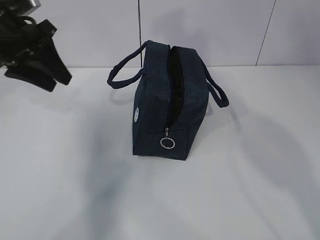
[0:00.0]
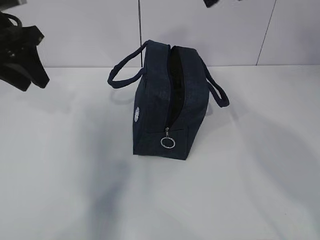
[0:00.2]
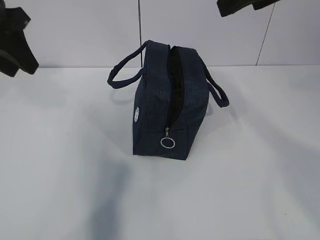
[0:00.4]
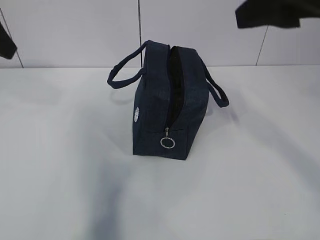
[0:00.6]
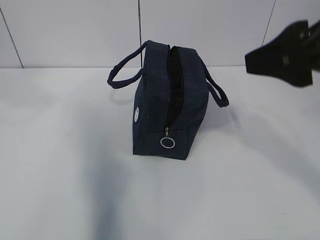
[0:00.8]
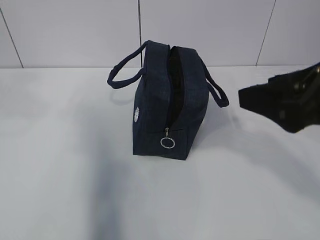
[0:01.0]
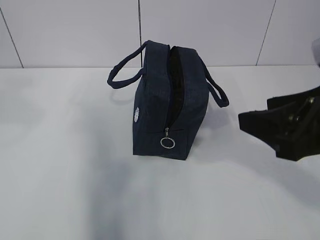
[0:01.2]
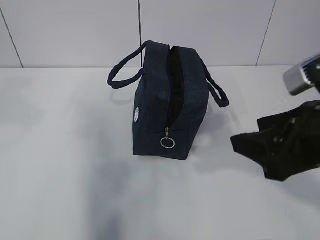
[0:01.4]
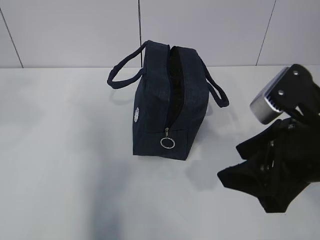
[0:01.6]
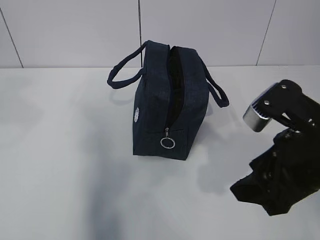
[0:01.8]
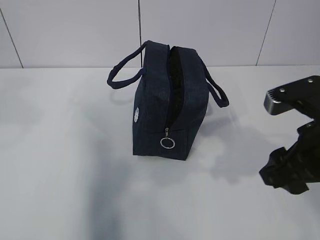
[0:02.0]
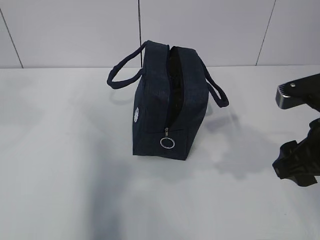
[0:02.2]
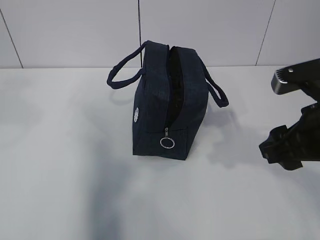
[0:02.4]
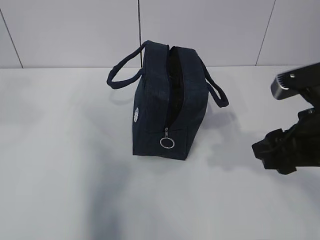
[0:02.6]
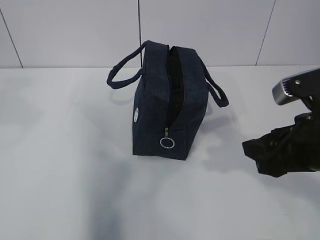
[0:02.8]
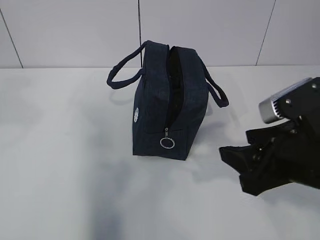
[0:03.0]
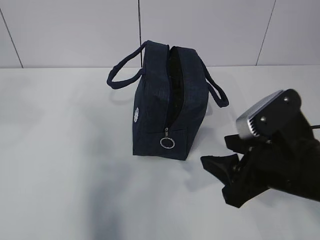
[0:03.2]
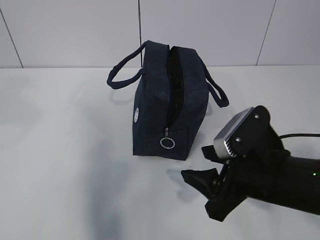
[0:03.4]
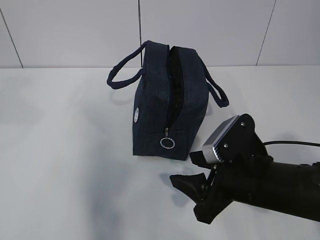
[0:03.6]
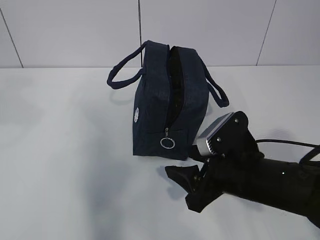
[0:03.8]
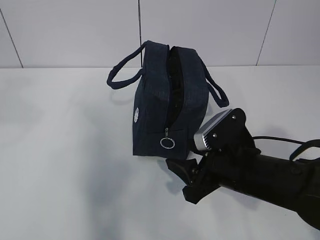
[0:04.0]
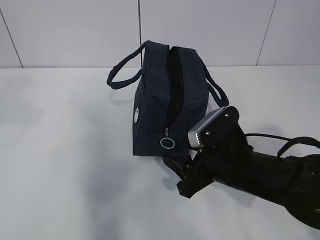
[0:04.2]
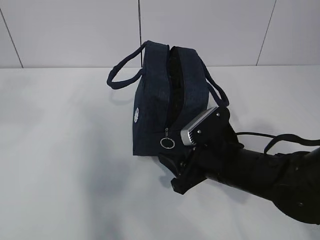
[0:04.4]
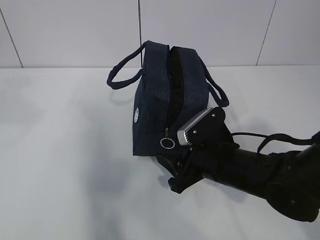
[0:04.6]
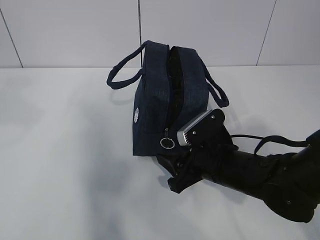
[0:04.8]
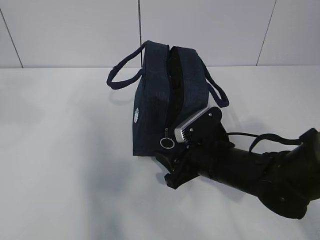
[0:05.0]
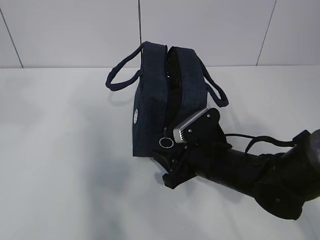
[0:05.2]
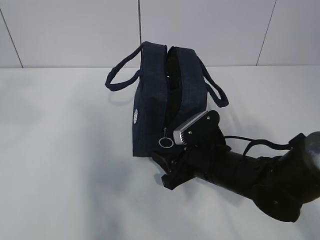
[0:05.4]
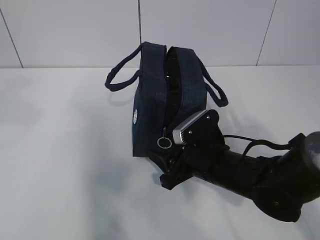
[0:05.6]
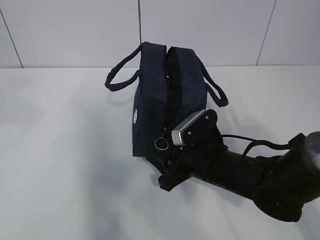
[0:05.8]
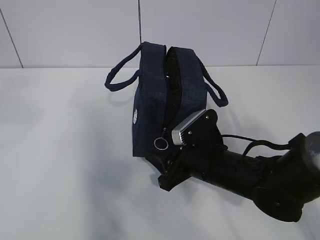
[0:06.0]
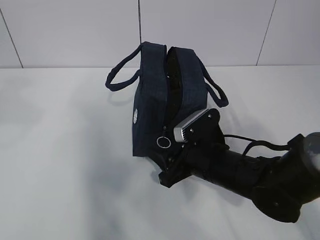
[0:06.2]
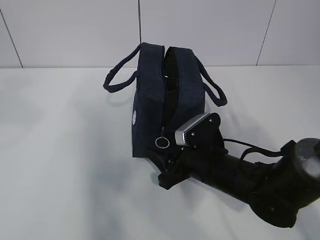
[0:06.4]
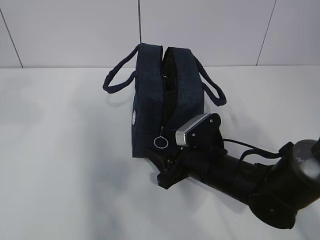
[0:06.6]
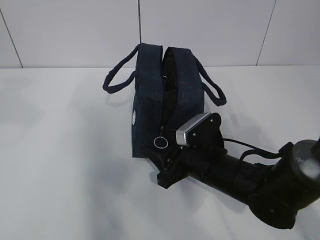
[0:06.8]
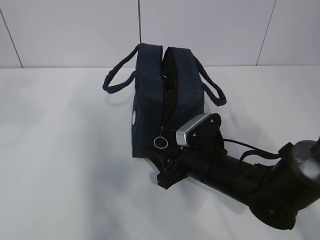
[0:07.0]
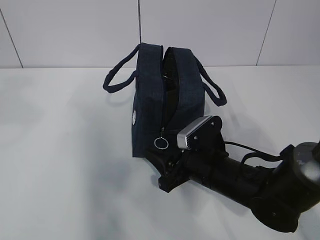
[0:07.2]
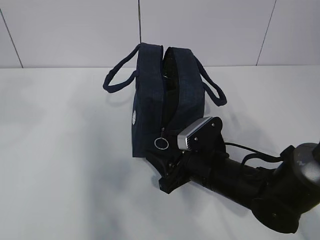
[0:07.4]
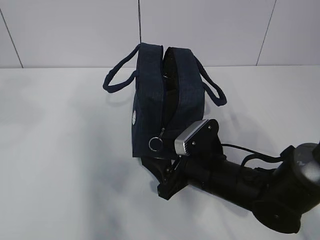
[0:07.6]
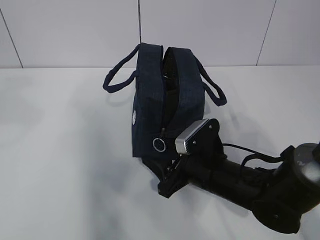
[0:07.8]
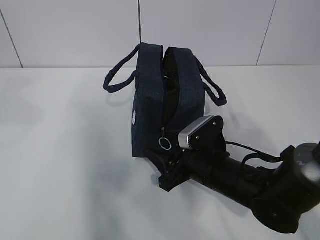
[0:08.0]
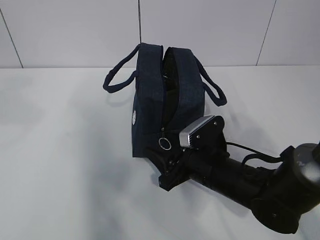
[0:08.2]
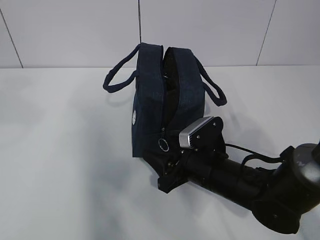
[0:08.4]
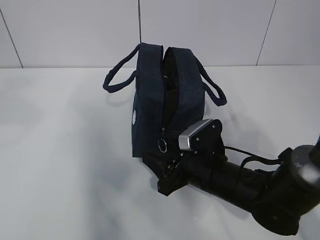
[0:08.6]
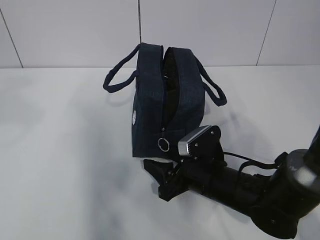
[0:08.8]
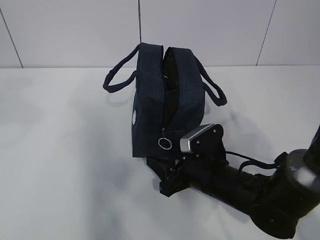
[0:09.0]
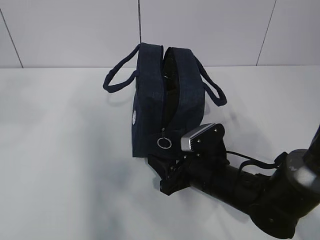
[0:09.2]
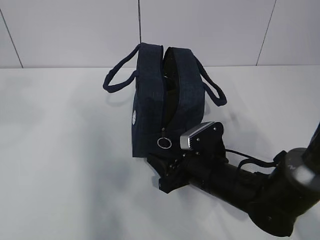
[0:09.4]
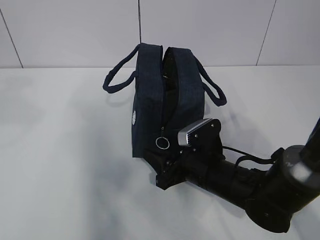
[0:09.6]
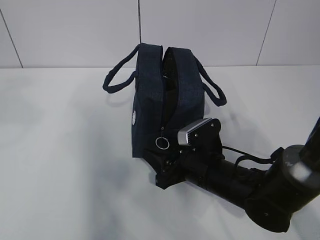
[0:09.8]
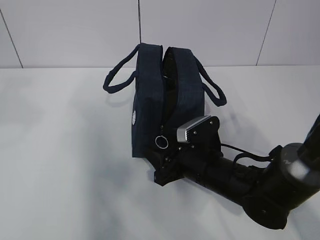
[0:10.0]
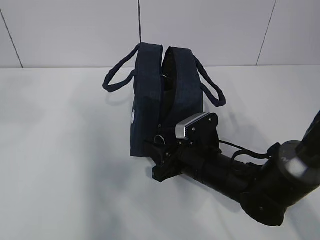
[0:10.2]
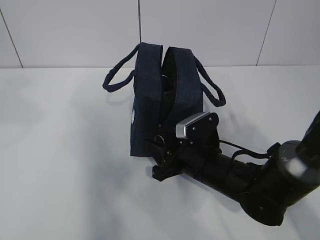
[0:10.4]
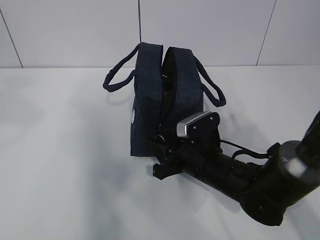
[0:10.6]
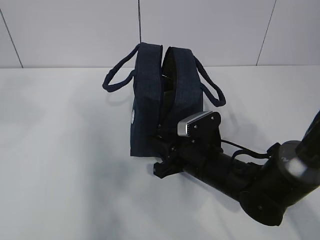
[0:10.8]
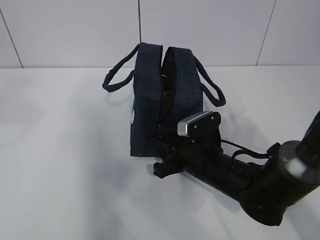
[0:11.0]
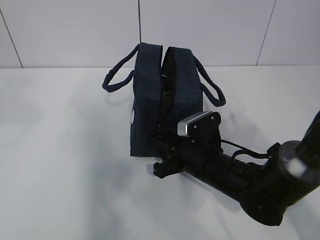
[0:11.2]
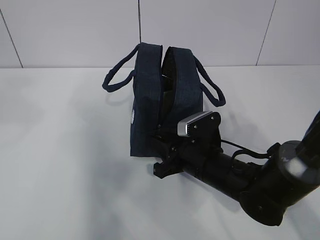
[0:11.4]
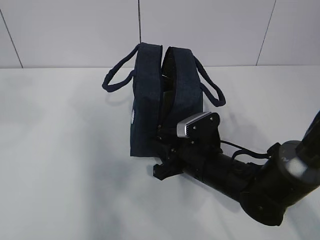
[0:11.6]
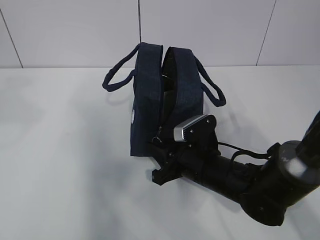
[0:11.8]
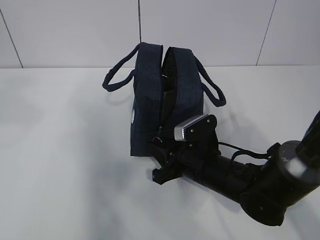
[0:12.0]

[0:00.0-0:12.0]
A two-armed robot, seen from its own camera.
Step, 0:00.0 to 0:09.4: Grab the lunch bag with your left hand.
0:00.0 to 0:01.6: The right gripper moves downward and backward, some 25 cm. Meanwhile the left gripper goes approximately 20 cm backward and upward.
0:03.0 to 0:04.4: The right gripper is displaced downward, forward and to the left by some 15 cm.
0:04.4 to 0:10.4: The grippers stay close to where they were, moving slightly.
0:10.4 to 0:12.0: Both grippers stay about where they are.

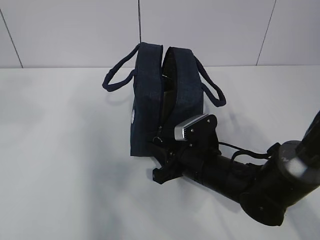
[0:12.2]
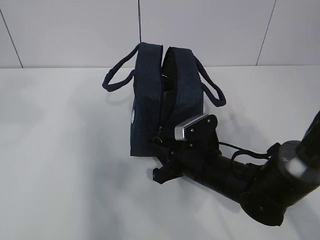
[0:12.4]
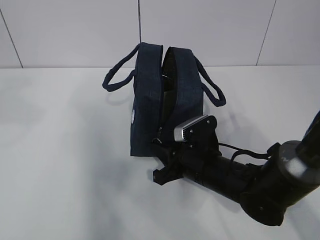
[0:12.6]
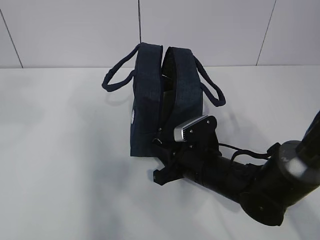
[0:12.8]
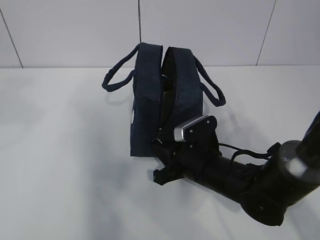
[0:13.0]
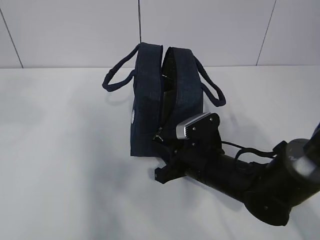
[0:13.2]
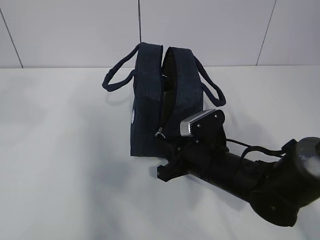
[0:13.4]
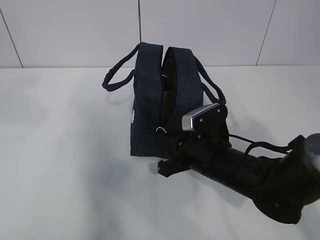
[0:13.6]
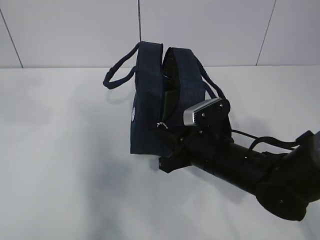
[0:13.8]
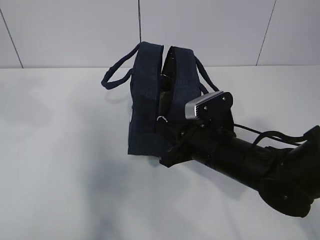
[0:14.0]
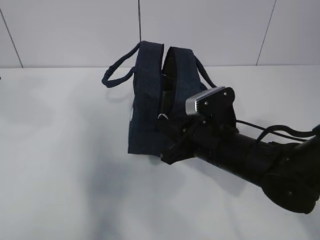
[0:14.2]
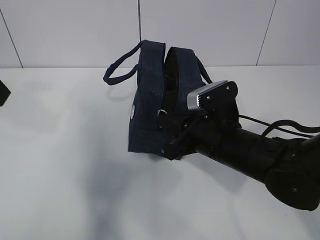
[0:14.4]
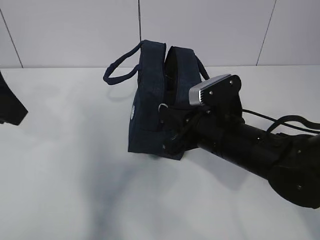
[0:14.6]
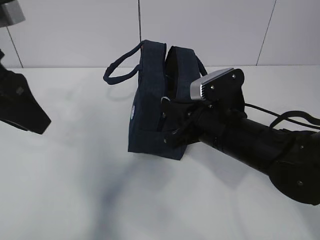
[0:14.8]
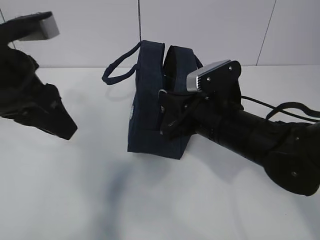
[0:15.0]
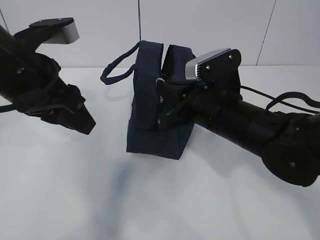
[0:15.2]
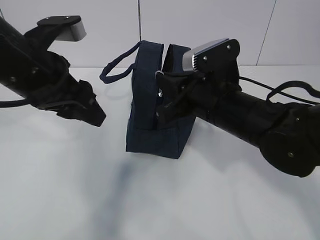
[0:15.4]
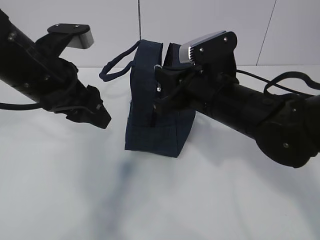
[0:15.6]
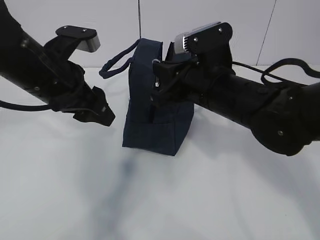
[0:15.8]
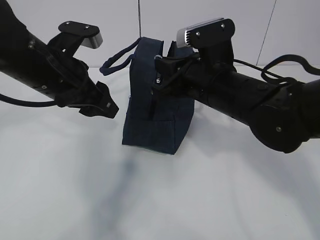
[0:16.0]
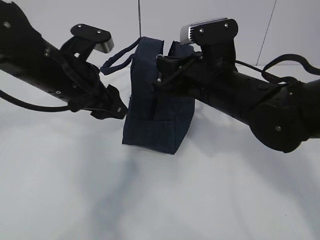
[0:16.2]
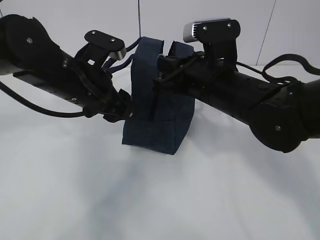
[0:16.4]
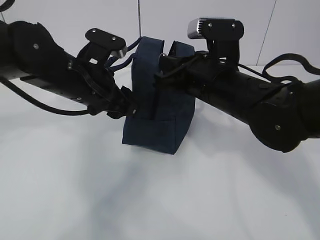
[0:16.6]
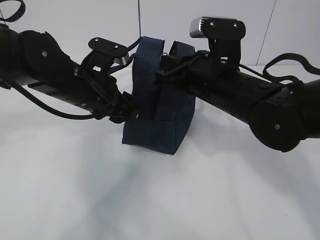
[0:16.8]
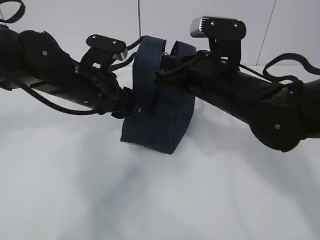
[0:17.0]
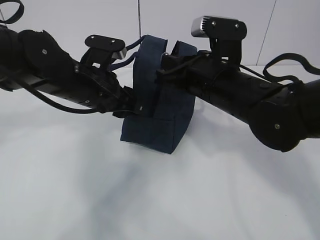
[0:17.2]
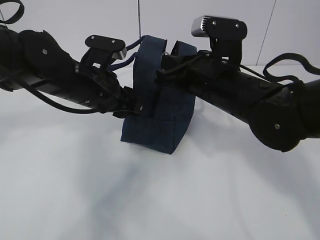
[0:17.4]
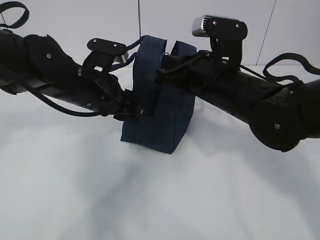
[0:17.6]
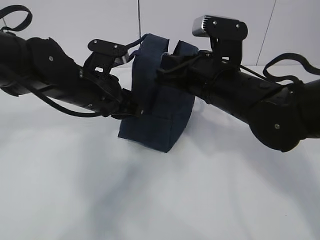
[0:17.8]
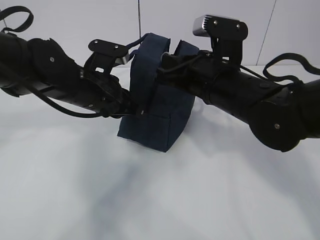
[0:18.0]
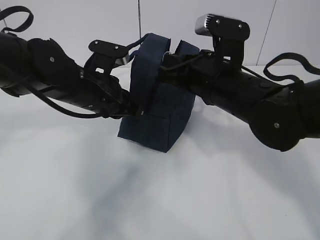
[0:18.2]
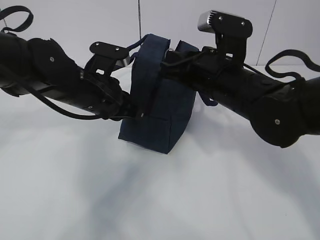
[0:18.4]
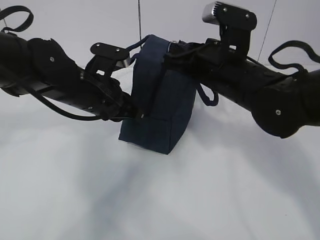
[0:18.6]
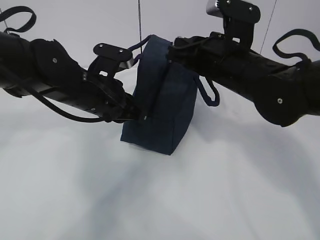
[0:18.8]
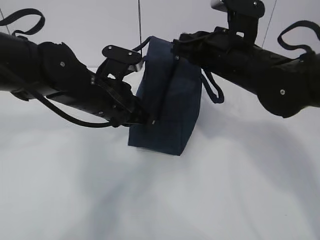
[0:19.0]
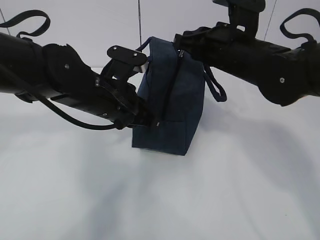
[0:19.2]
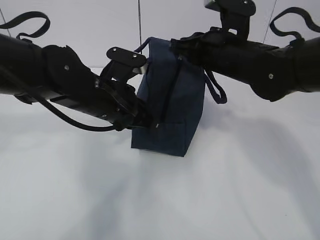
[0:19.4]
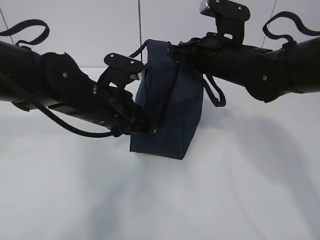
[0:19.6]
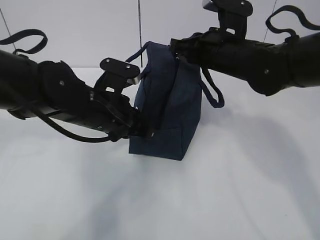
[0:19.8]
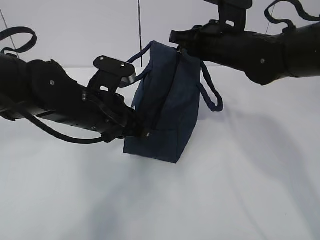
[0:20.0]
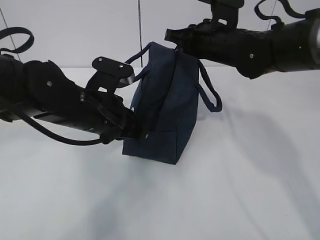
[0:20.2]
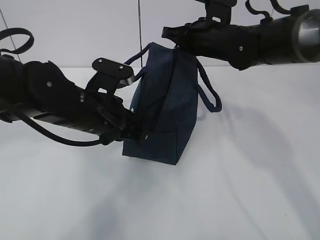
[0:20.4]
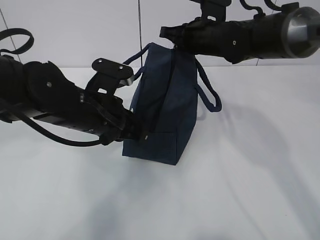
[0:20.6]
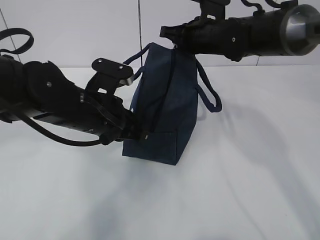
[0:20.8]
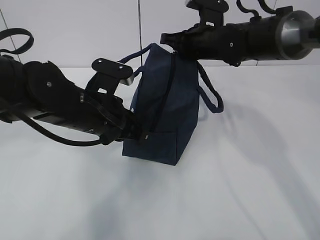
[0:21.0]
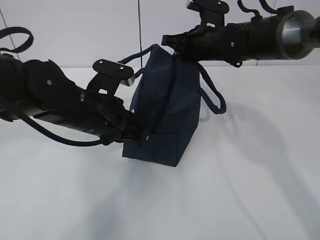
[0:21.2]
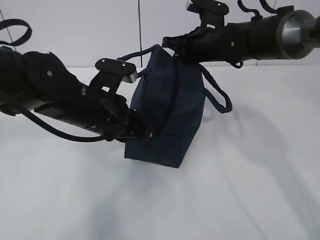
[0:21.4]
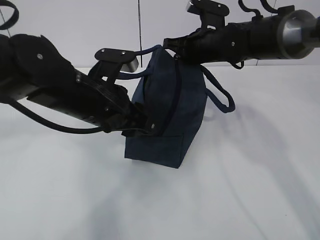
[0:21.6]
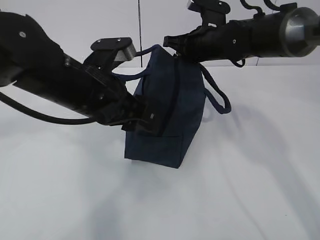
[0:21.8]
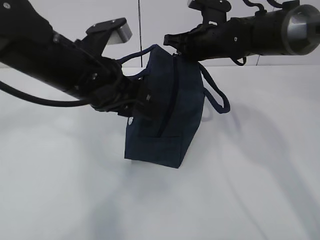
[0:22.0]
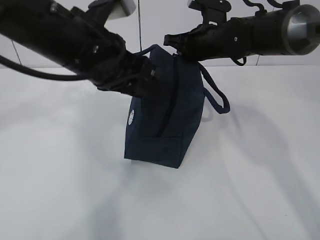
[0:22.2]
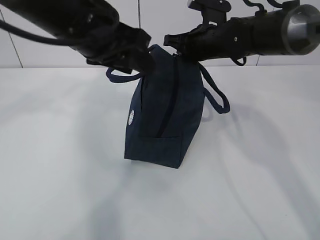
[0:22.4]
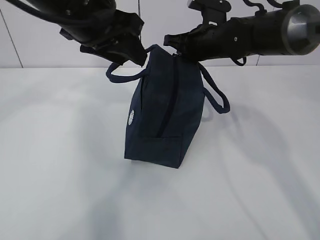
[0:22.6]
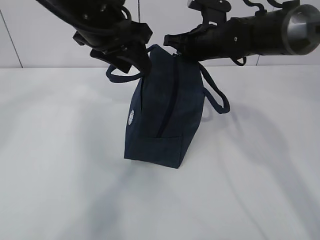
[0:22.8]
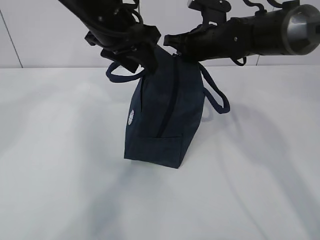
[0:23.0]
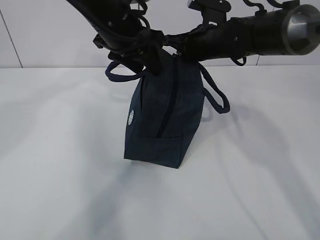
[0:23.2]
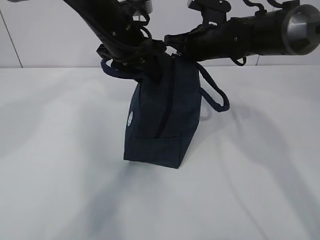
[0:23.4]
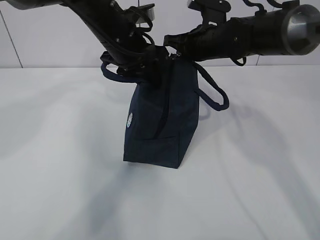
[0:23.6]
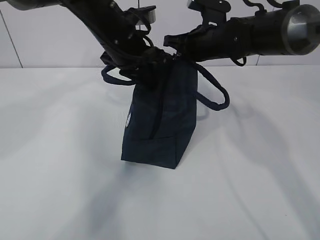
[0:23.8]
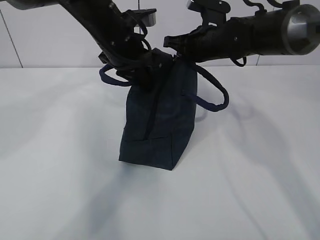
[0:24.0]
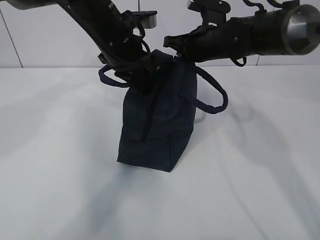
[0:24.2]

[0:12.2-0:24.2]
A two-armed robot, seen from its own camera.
Step, 0:12.2 to 0:17.0: Pull the zipper with your right hand.
Step, 0:17.2 to 0:17.6: Grab the lunch bag with your left hand.
0:12.2 to 0:13.8: The grippers make only small movements.
0:13.8 to 0:15.2: The left gripper moves downward and to the right, approximately 15 cm, while the right gripper shifts some 10 cm upward.
0:15.2 to 0:16.6: The left gripper shifts roughly 10 cm downward and forward.
0:16.6 to 0:18.2: The left gripper closes its fingers.
0:18.2 to 0:19.8: The right gripper is displaced forward by approximately 5 cm.
0:19.8 to 0:21.2: The right gripper is displaced forward by approximately 10 cm.
0:21.2 to 0:22.6: The left gripper goes some 15 cm upward, and opens up.
0:22.6 to 0:24.2: The left gripper heads forward and downward, covering some 10 cm, and closes its fingers.
